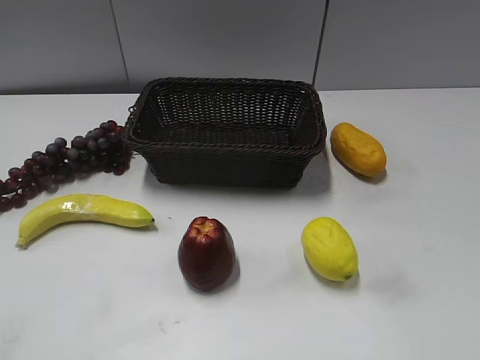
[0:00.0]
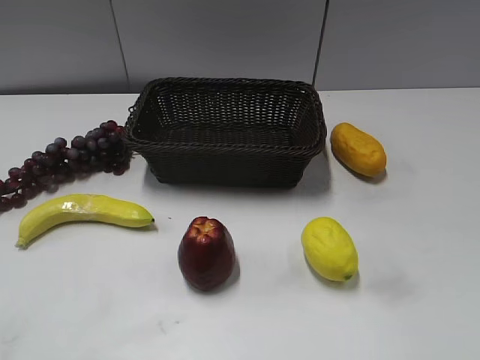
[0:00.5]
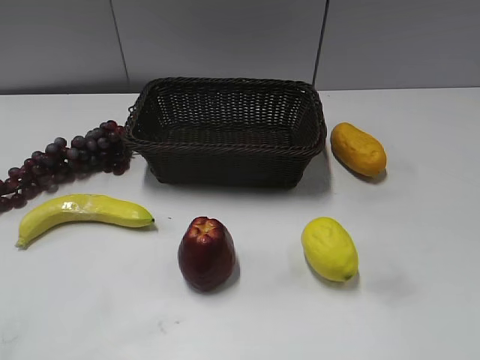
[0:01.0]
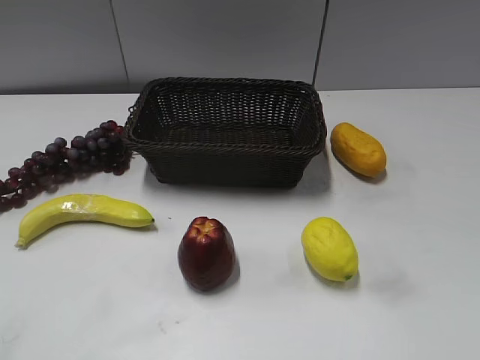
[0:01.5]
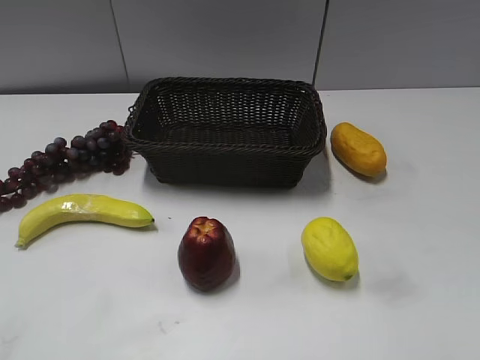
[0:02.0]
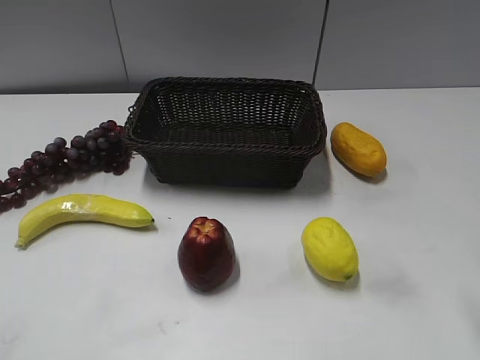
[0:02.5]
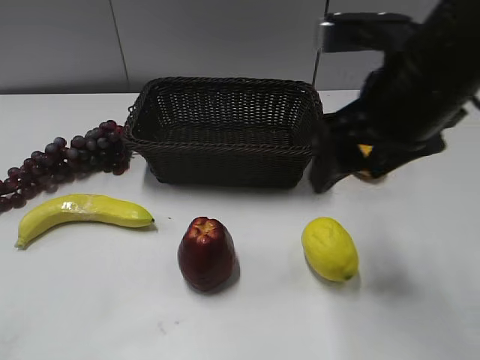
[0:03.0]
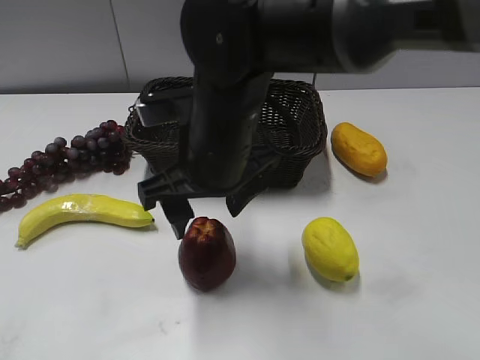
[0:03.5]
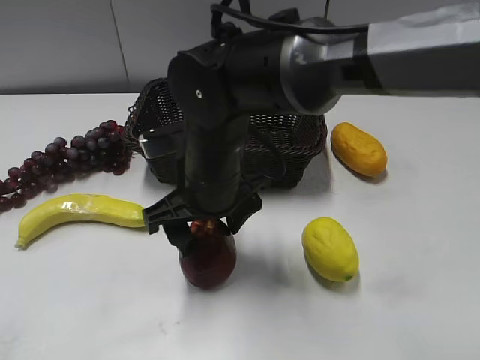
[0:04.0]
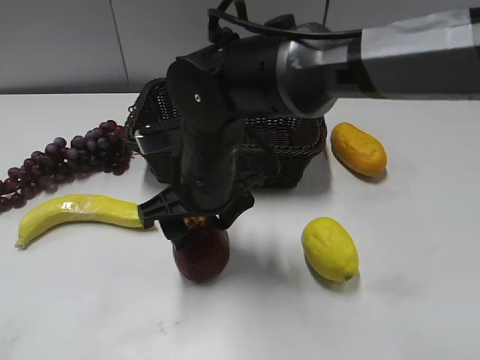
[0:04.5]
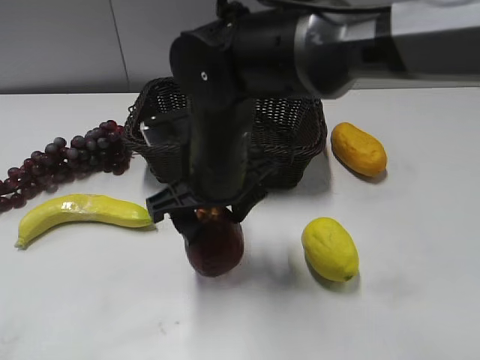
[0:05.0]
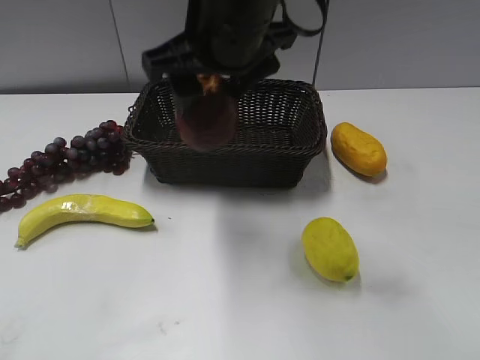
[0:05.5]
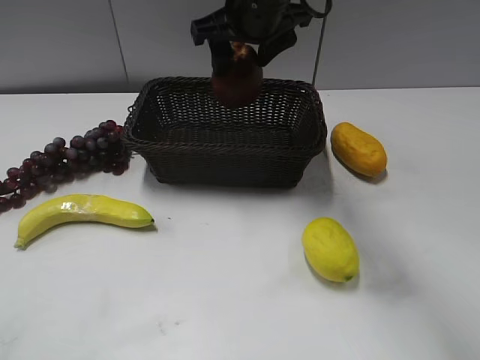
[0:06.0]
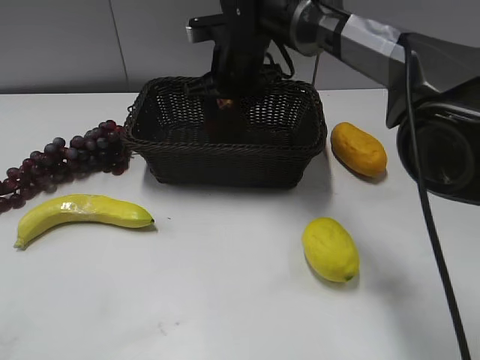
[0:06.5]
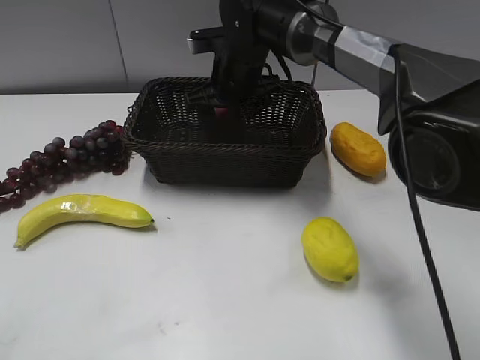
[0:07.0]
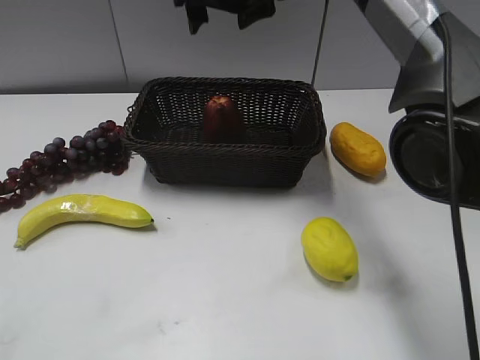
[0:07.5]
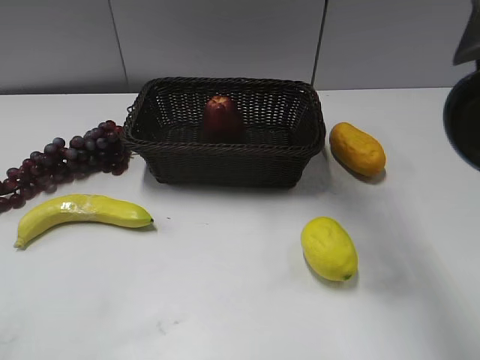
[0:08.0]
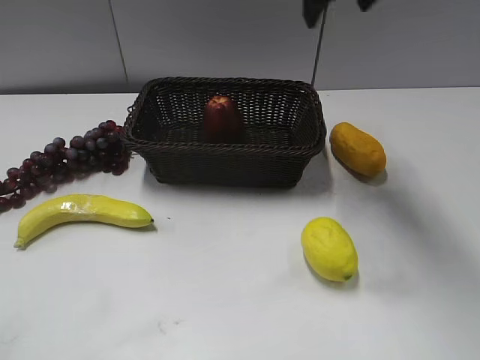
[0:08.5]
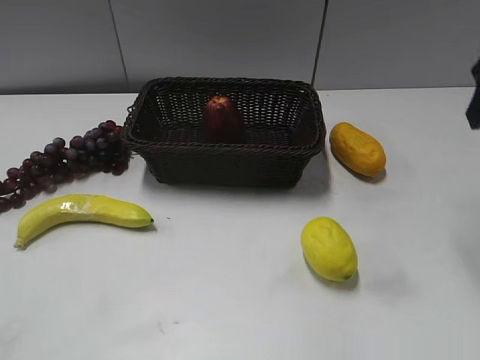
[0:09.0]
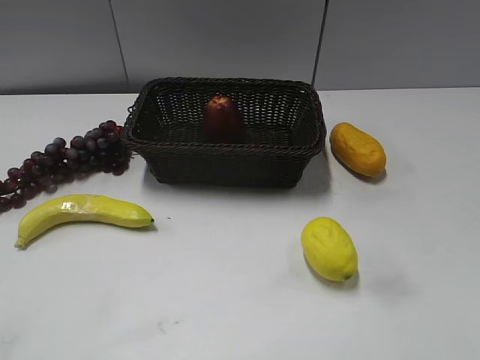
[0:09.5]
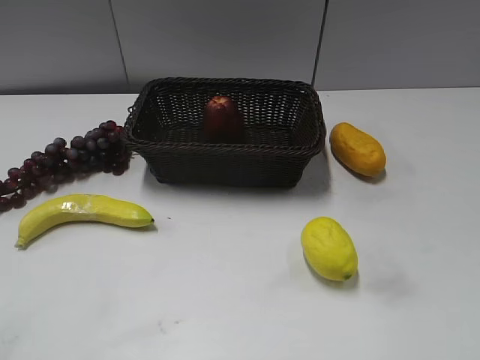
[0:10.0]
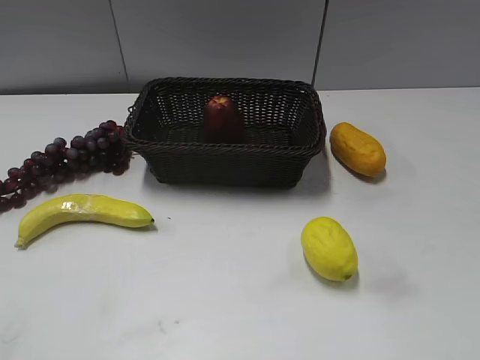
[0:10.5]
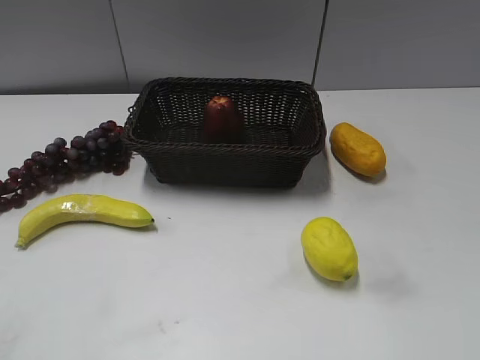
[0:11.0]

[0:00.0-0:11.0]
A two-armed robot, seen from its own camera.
Step, 0:03.0 to 0:04.0: Grasp the apple with right gripper.
Step, 0:04.5 to 0:06.5: Place the apple in the basket with right gripper.
0:02.0 to 0:03.5: The right gripper travels to the left and forward by roughly 35 cm.
0:03.5 to 0:05.5: The right gripper heads upward, covering roughly 5 cm.
0:05.5 to 0:07.5: The right gripper moves forward, roughly 15 cm.
0:07.5 to 0:09.0: The right gripper goes approximately 30 cm to the right and backward.
0:09.0 to 0:11.0: The right gripper travels backward by some 30 cm.
